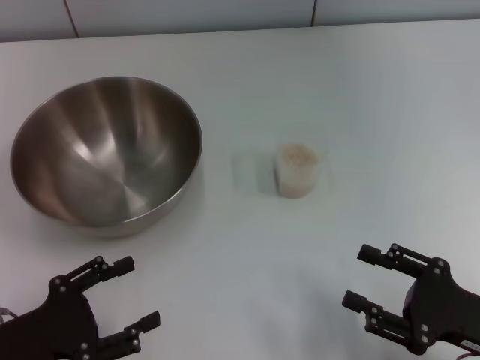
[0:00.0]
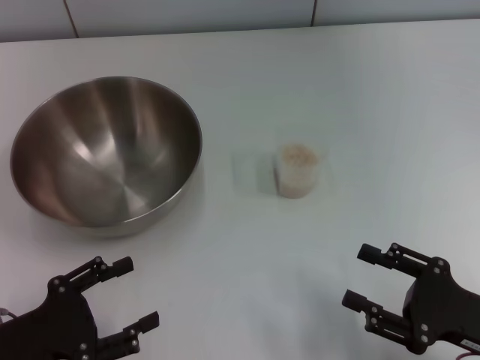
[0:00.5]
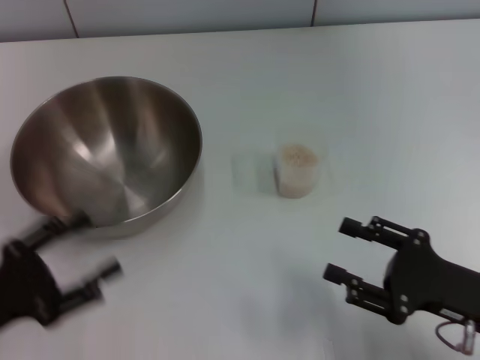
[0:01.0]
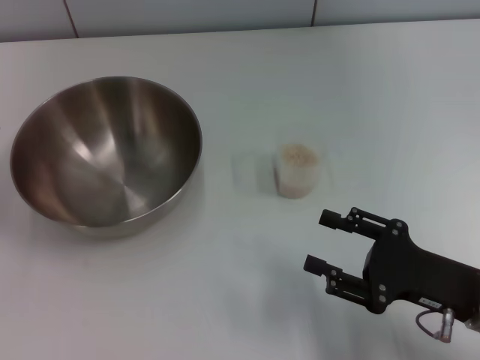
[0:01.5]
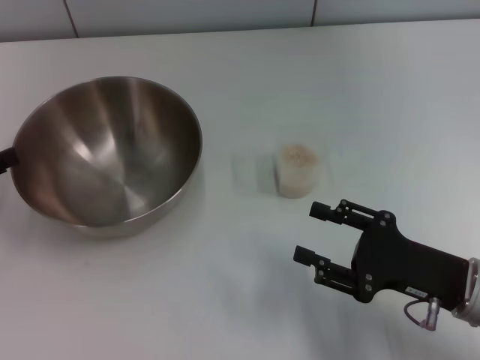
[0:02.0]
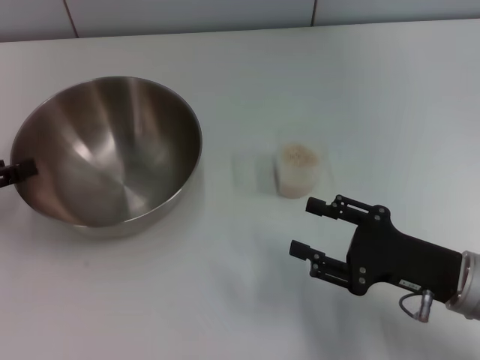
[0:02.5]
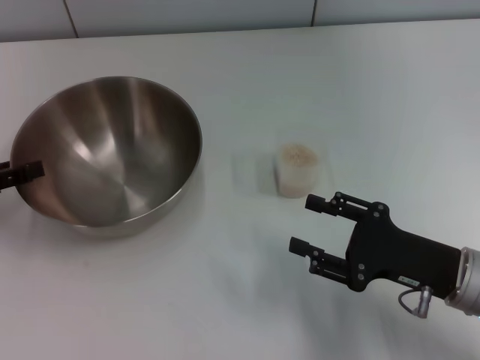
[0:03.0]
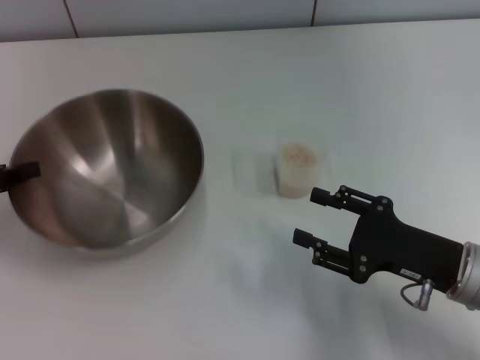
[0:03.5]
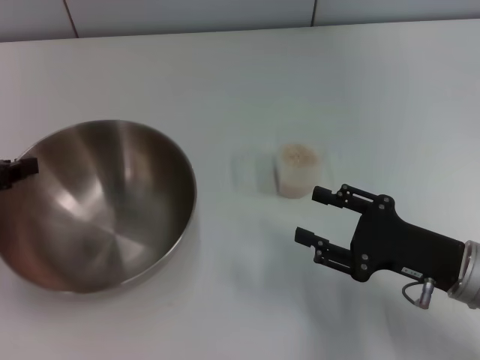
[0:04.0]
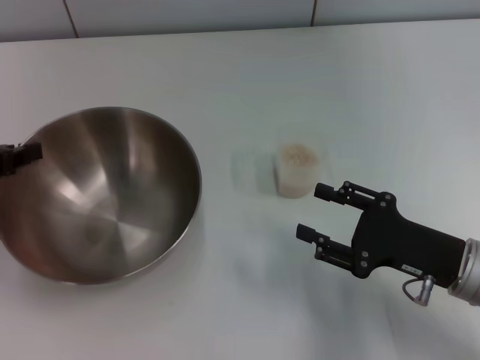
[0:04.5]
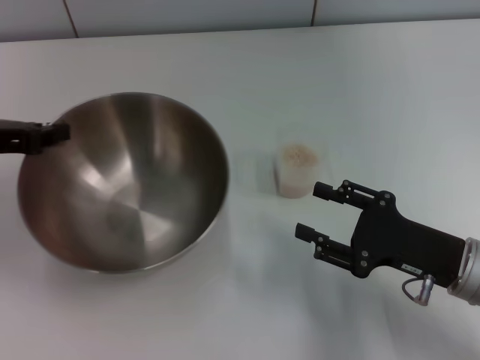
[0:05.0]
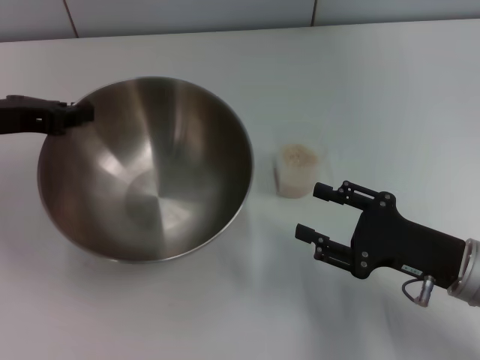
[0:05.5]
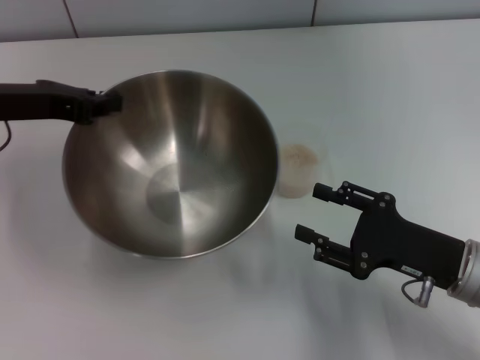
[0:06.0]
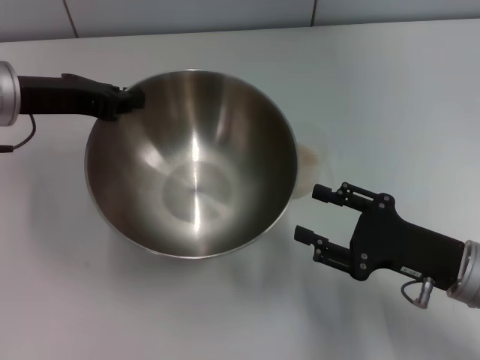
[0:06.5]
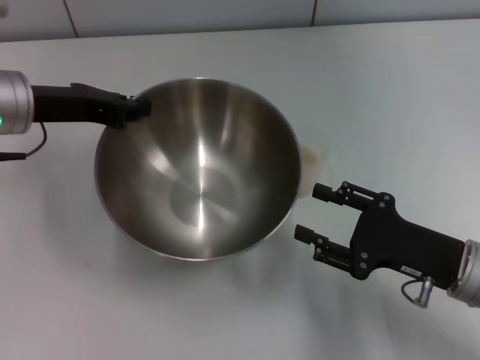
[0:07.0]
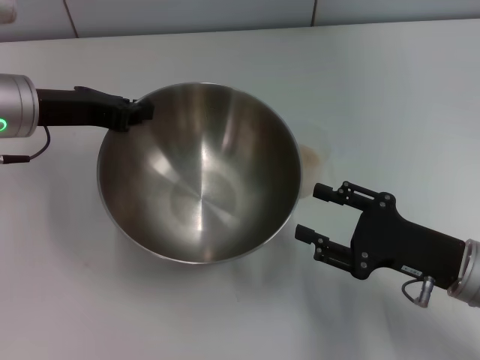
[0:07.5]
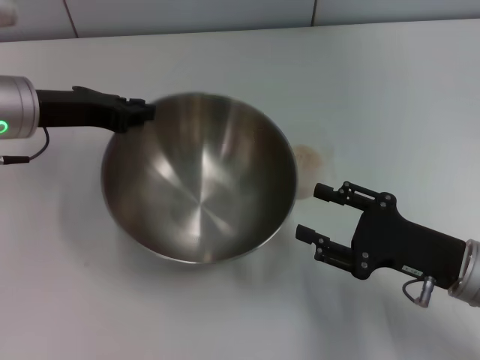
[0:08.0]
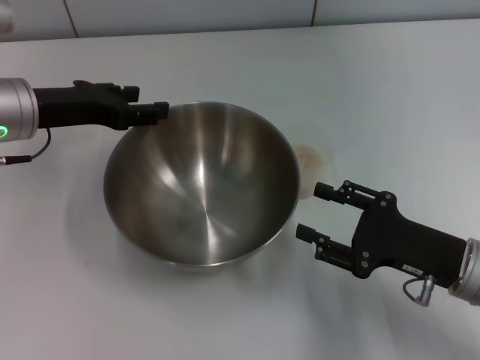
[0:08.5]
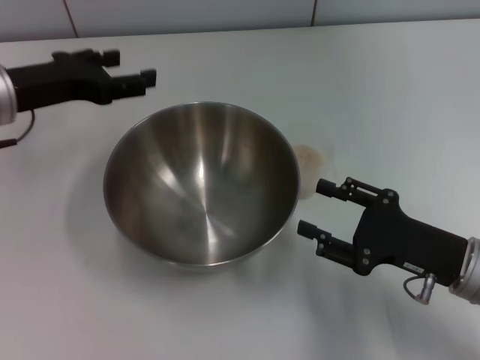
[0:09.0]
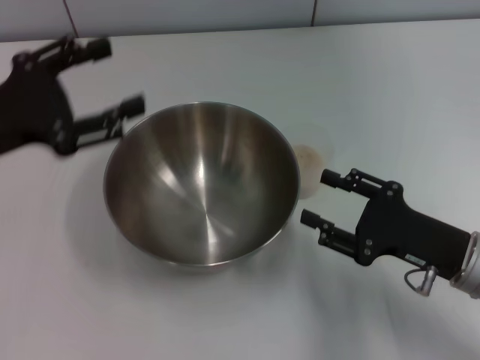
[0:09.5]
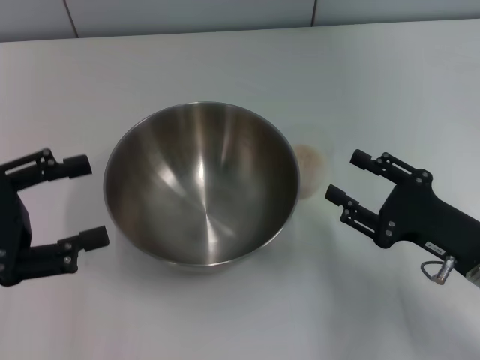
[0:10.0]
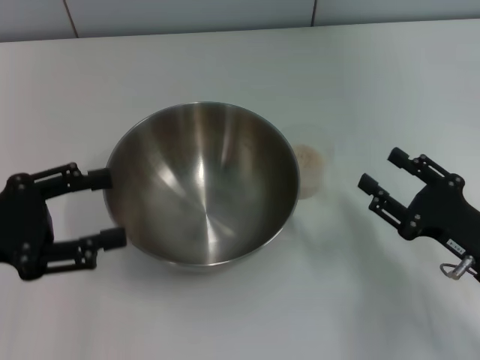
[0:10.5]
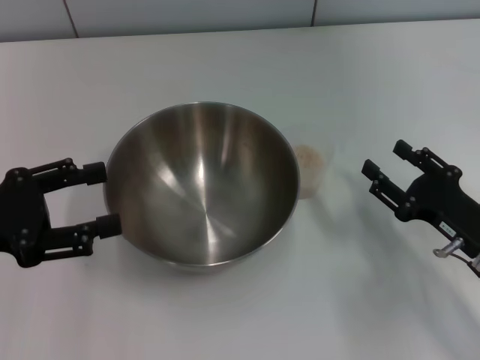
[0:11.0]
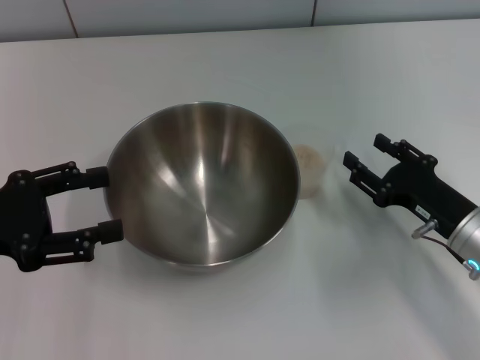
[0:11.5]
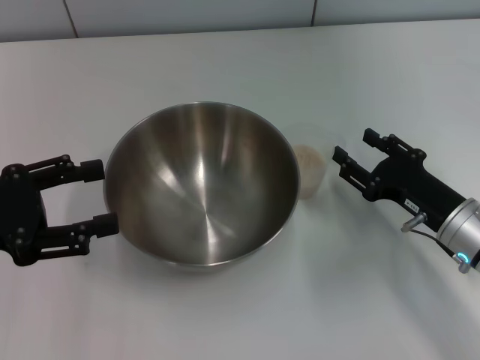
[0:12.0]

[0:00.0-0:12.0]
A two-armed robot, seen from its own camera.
Task of the whole recording: Place the bowl in the middle of the table with one hand and pour the rice from the grain cup into it with the other hand.
Step, 0:00.0 to 0:04.5: Pick up the bowl with the left gripper.
Step, 0:05.0 to 0:08.5: Place the bowl in the center of view with the left gripper.
0:00.0 to 0:02.0: The right gripper travels forward by approximately 5 cm; the left gripper travels forward, to the left and upward by some 15 cm.
0:02.0 to 0:04.0: The left gripper ends up about 5 cm from where it was, and closes up.
0:04.0 to 0:06.0: The left gripper goes about 10 cm to the right, forward and upward.
0:06.0 to 0:08.0: There are only small adjustments of the grippers.
0:08.0 to 0:10.0: The left gripper moves backward and to the left, roughly 15 cm, and opens up.
0:10.0 to 0:12.0: The right gripper shifts by approximately 5 cm.

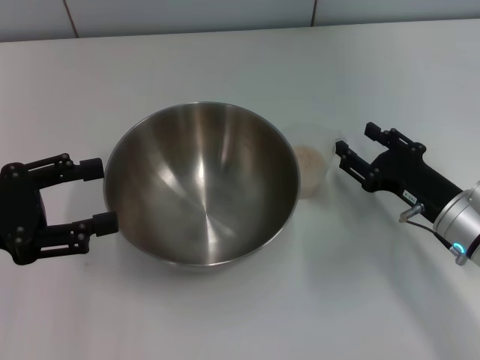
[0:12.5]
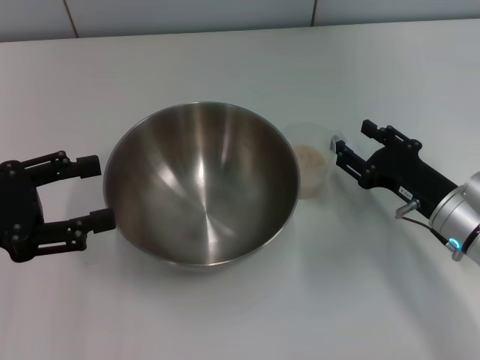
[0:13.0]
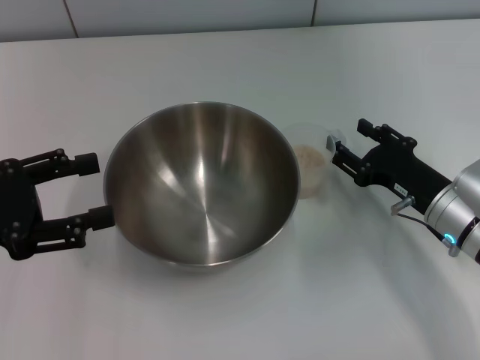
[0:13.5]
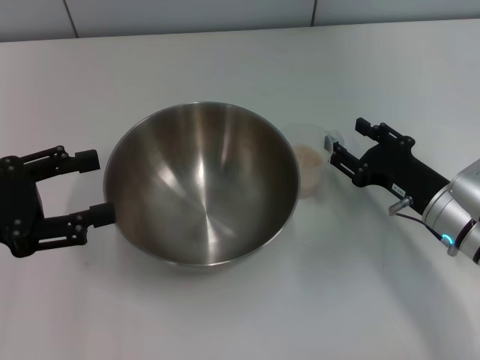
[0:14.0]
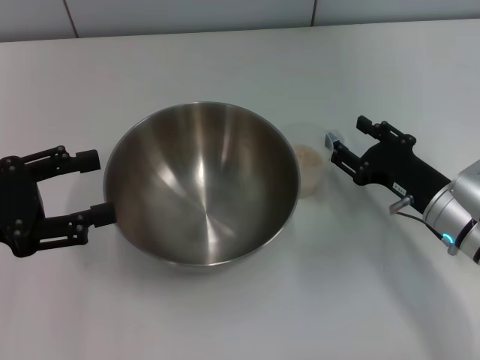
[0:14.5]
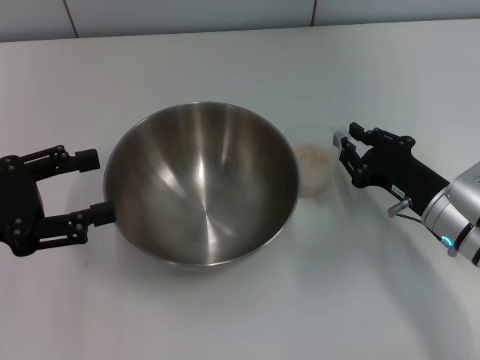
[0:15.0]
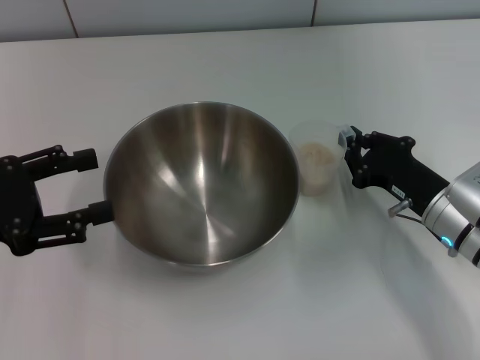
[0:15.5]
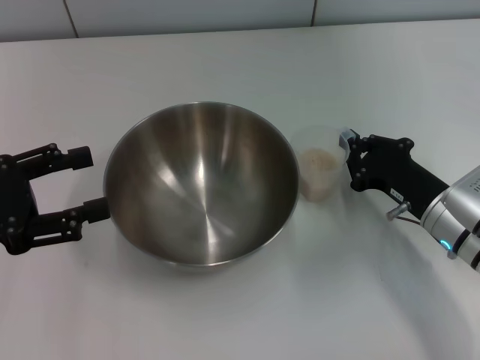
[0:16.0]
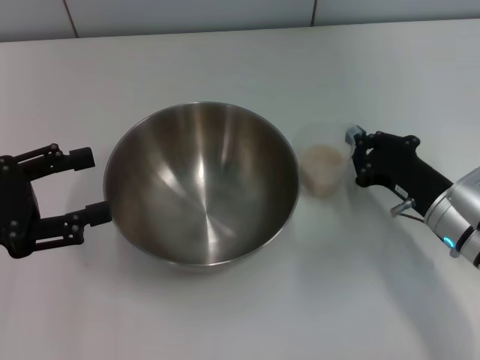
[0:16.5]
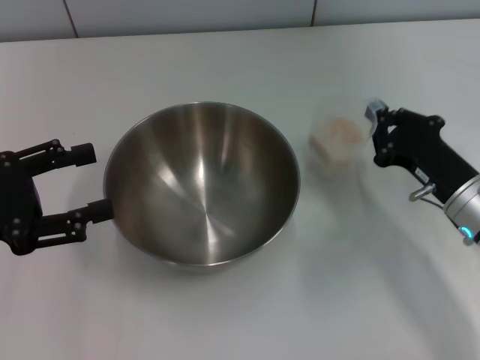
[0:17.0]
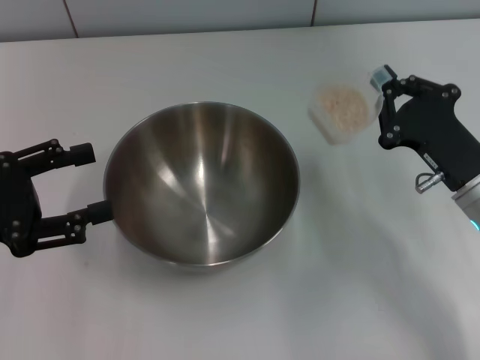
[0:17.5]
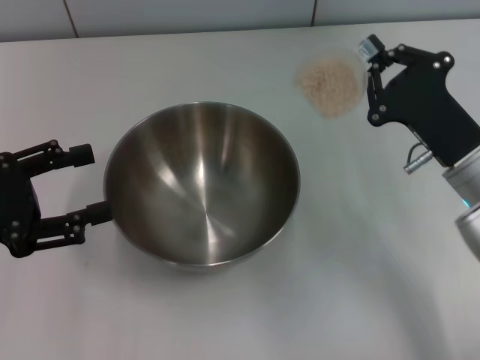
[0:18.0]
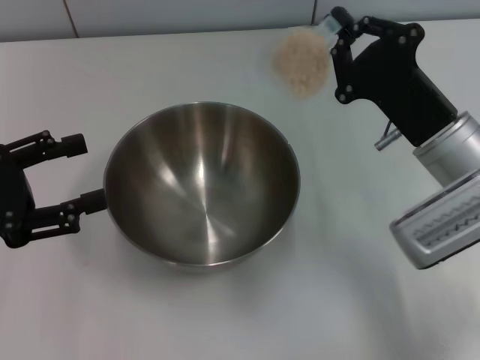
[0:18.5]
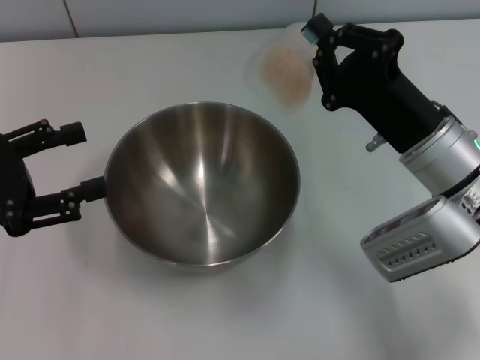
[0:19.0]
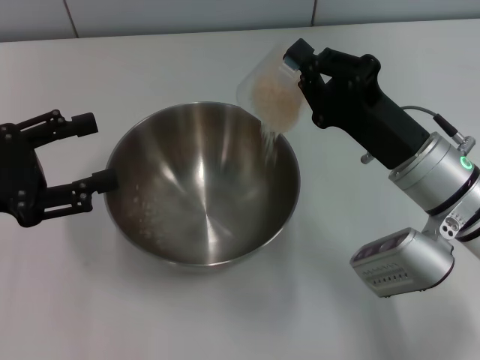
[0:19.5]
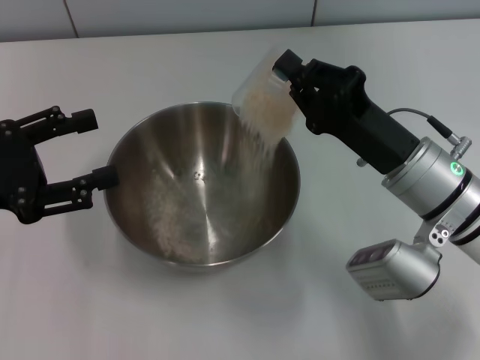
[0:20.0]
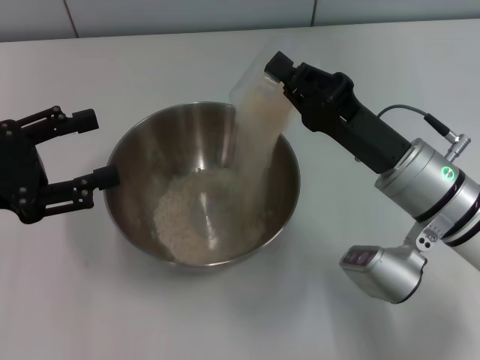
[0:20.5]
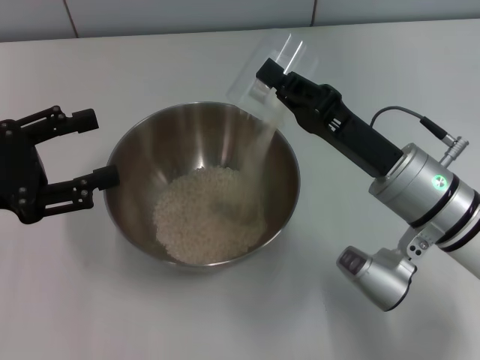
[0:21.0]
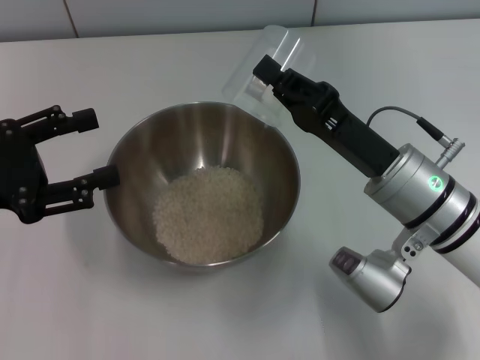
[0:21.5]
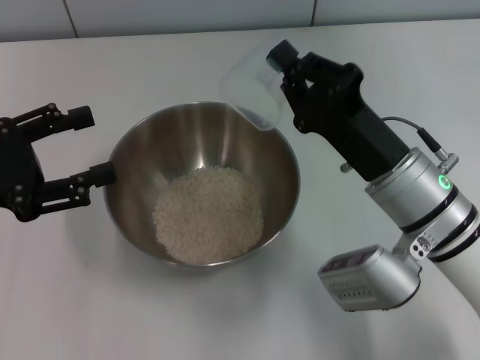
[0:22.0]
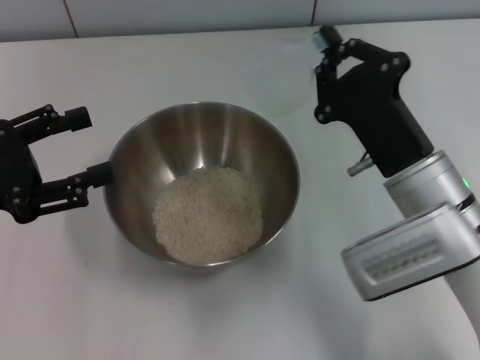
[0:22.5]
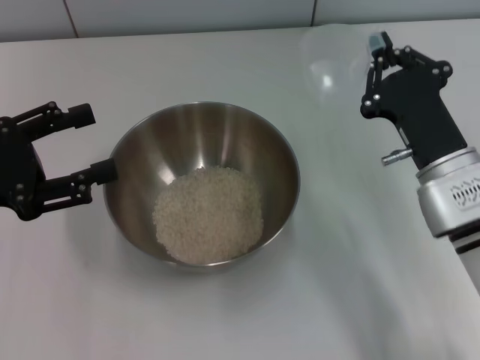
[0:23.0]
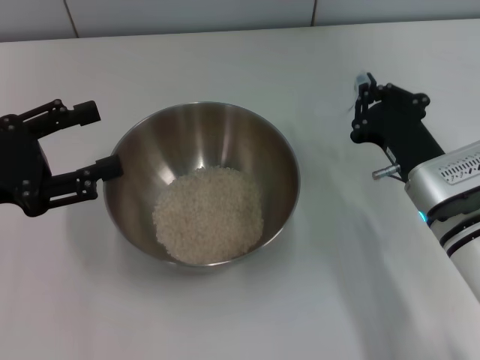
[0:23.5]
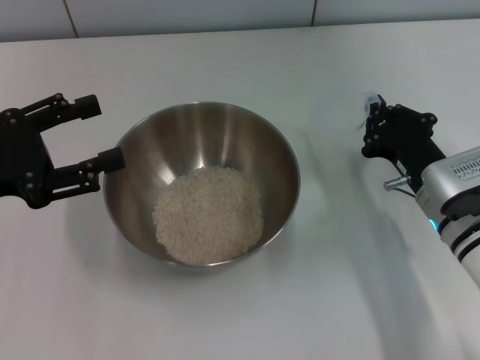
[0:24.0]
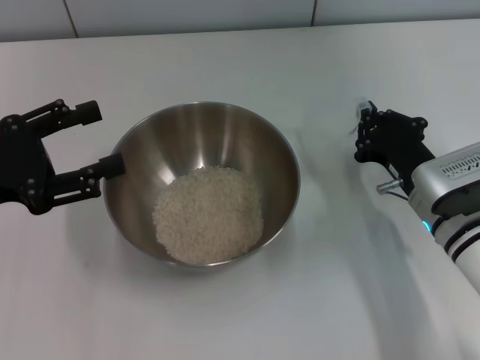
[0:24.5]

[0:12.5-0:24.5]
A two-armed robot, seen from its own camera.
Task of the whole recording: Place the bowl in the middle of the table with one hand and pour the rice from the grain cup into it with the other hand.
Step, 0:12.5 to 0:17.0: Pick up the cup with rice in it with the right gripper.
Step, 0:17.5 to 0:22.0: Pour the rice from the cup into the bowl with the right gripper.
0:12.5 to 0:14.5: The grippers make only small movements.
0:14.5 to 0:16.5: The right gripper closes.
0:16.5 to 0:18.5: The right gripper shifts approximately 10 cm upward.
0:22.5 to 0:24.5: The right gripper heads downward, covering approximately 5 cm.

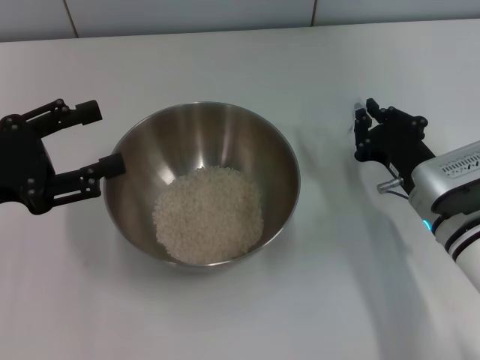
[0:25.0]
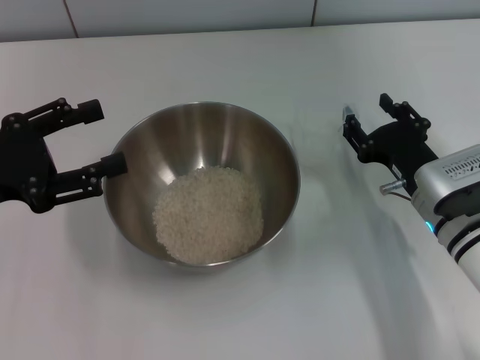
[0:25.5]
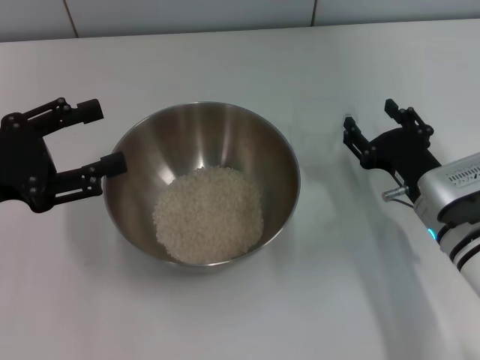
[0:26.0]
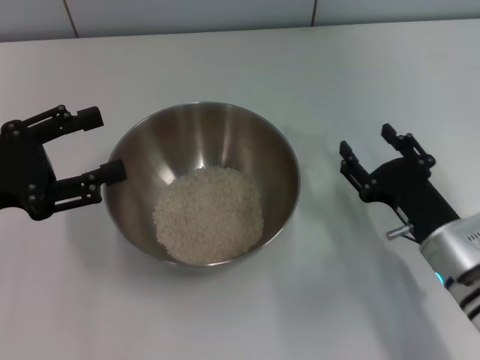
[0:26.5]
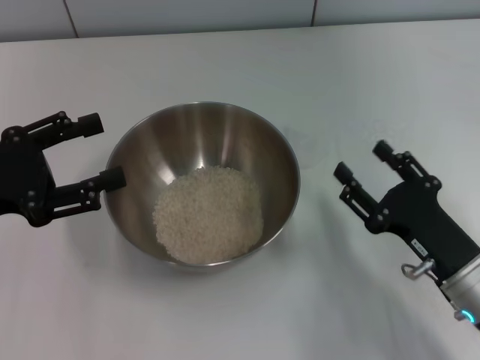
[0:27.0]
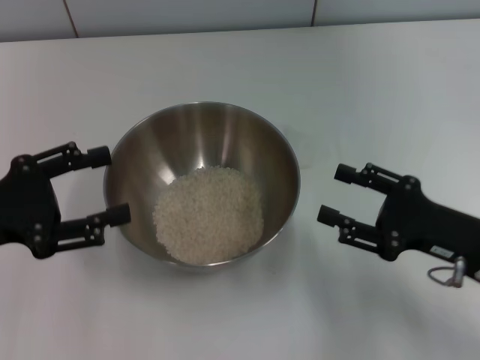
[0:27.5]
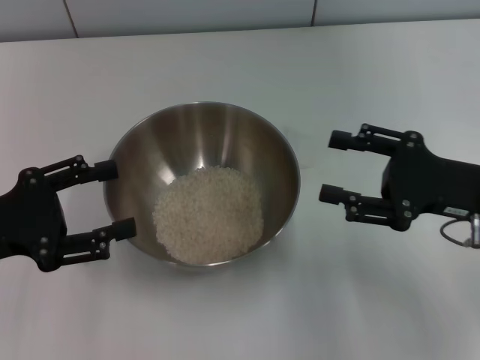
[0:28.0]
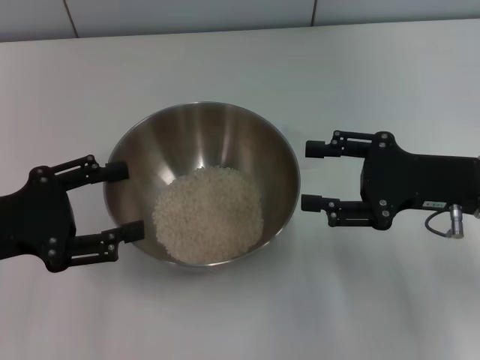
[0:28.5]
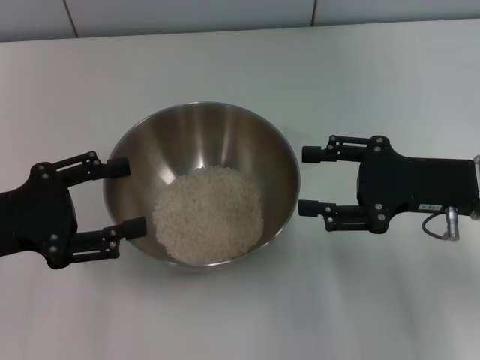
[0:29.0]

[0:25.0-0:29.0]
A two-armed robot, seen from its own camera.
Task of the whole recording: Place the bowl in the middle of the table with one hand and pour the rice from the grain cup into it with the other hand.
0:25.0 to 0:27.0: The right gripper is displaced backward by about 10 cm, and opens up.
0:27.0 to 0:29.0: The right gripper heads forward and upward, covering some 10 cm.
